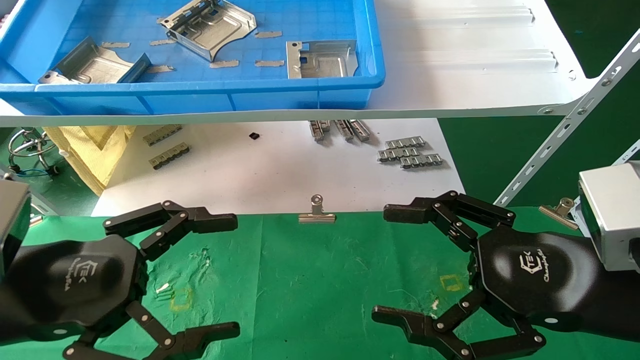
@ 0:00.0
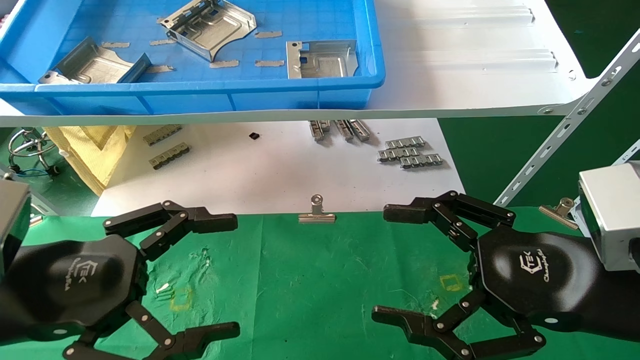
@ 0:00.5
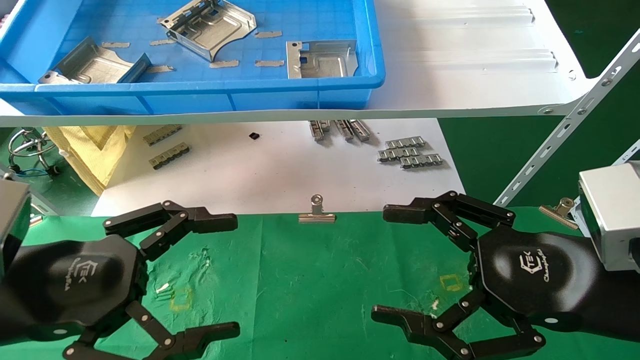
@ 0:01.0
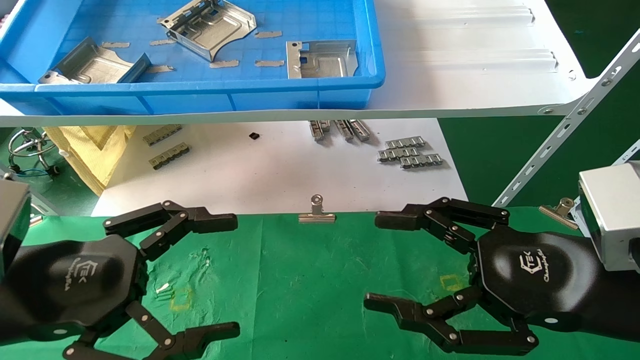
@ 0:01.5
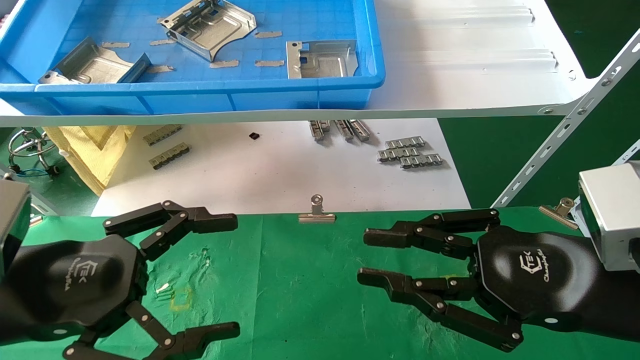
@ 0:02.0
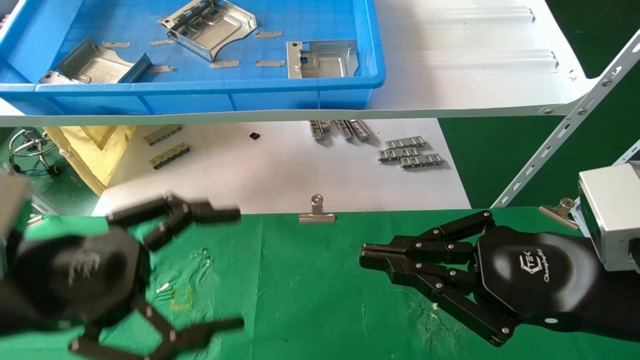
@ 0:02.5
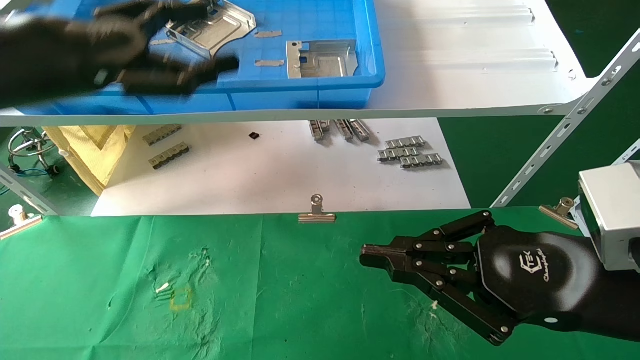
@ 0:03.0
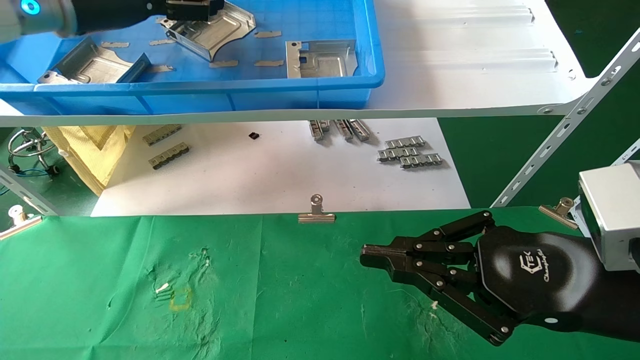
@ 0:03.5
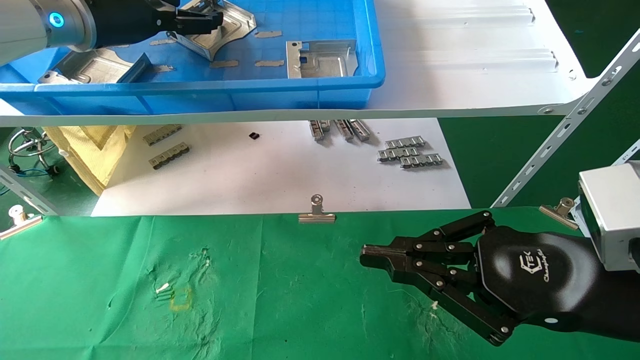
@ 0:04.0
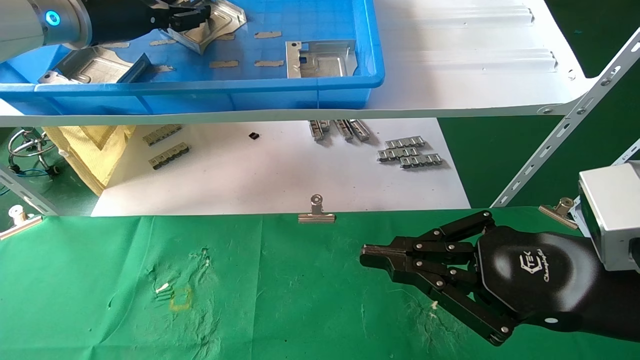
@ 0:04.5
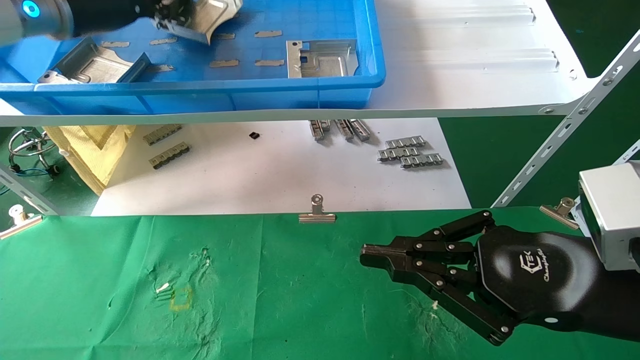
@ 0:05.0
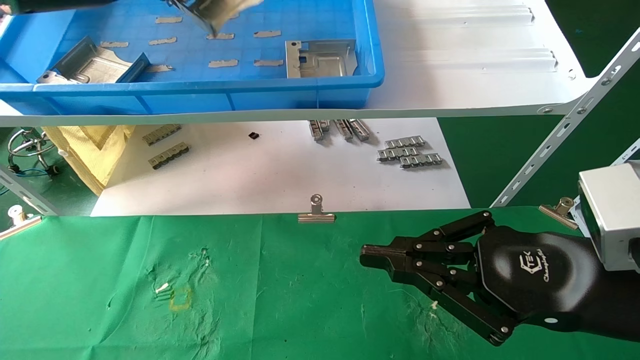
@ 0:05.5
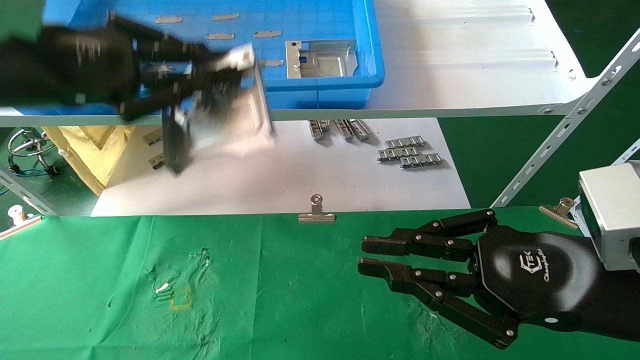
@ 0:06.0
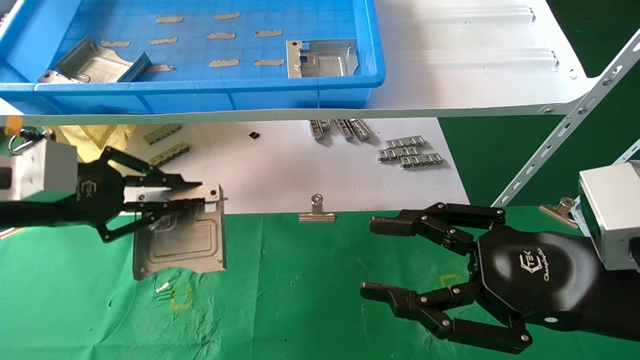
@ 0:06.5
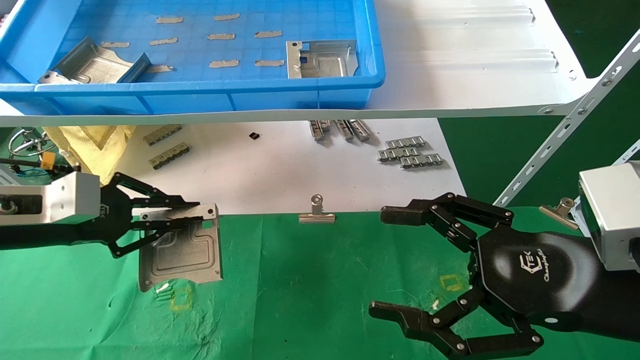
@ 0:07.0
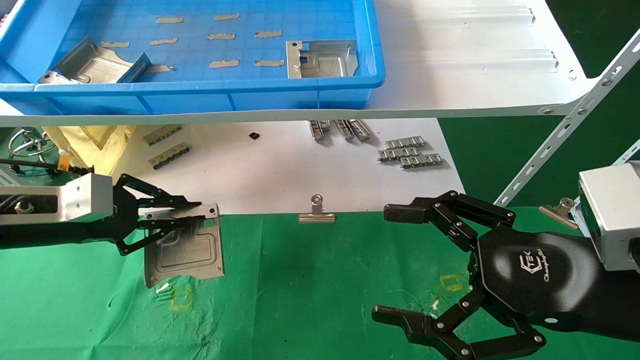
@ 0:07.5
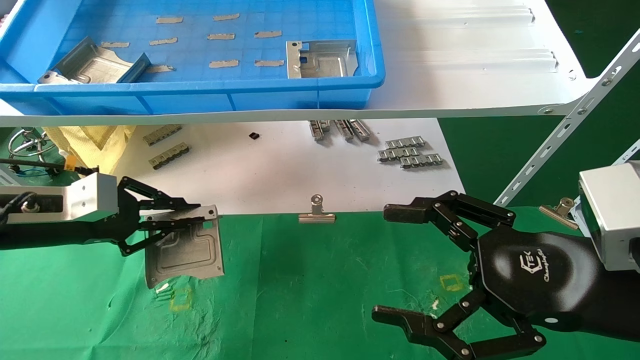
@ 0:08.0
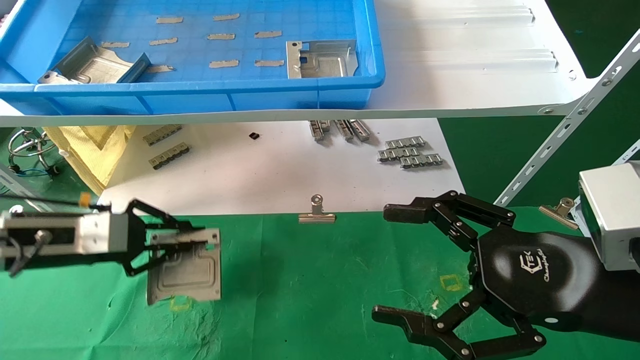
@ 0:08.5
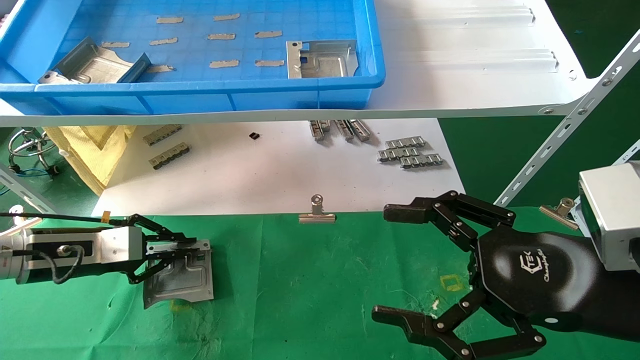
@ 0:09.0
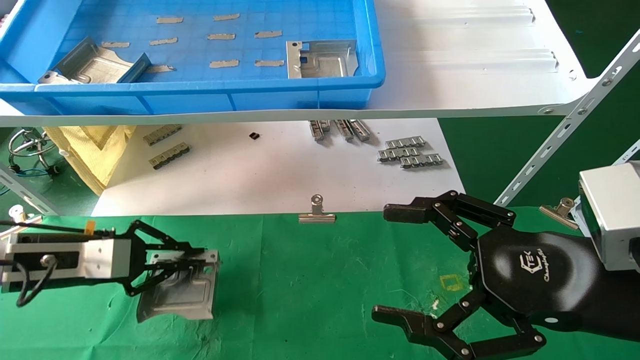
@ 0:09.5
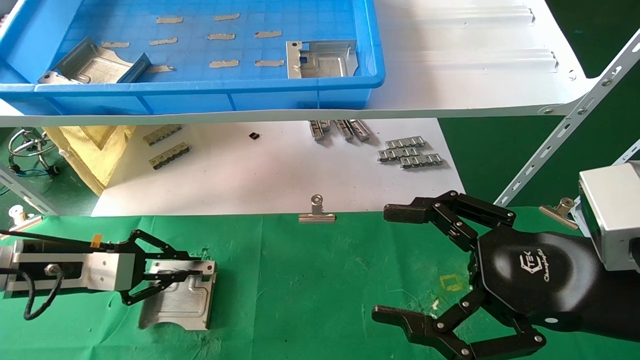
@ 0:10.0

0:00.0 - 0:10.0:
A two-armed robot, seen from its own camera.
Task of the whole recording: use the mechanical arm to pick up the parts and place them on the table.
Step, 0:03.0 - 0:04.5: Pick up the hard drive bracket from the feeding area.
0:00.0 - 0:02.0: The right gripper closes up.
0:02.0 - 0:04.0: The right gripper closes up. The left gripper moves forward and upward, about 35 cm.
0:04.0 - 0:06.0: The left gripper moves backward, about 15 cm, and closes its fingers.
0:06.0 - 0:08.0: The left gripper moves downward, about 15 cm. Meanwhile the right gripper opens its fingers.
0:08.0 - 0:10.0: The left gripper travels downward by about 5 cm.

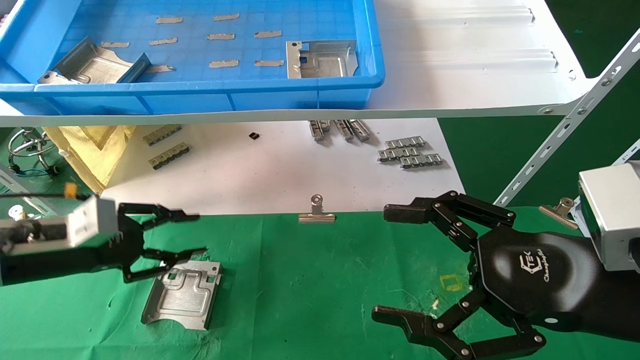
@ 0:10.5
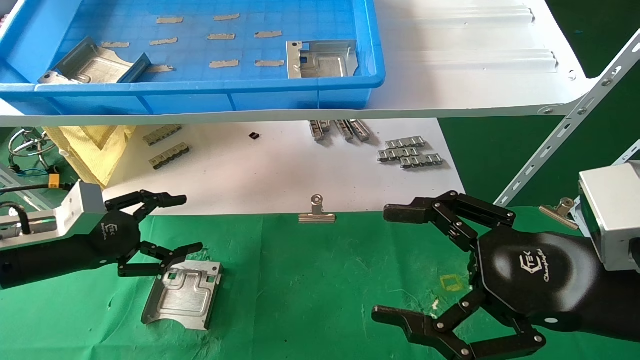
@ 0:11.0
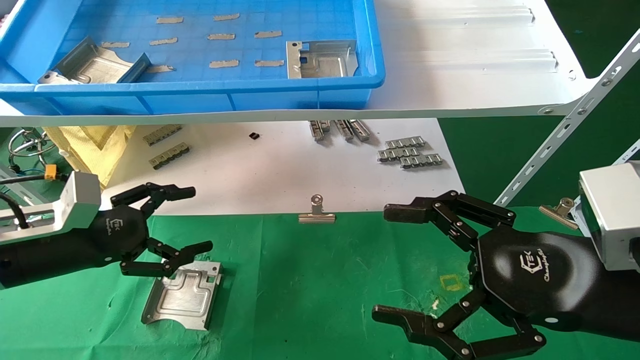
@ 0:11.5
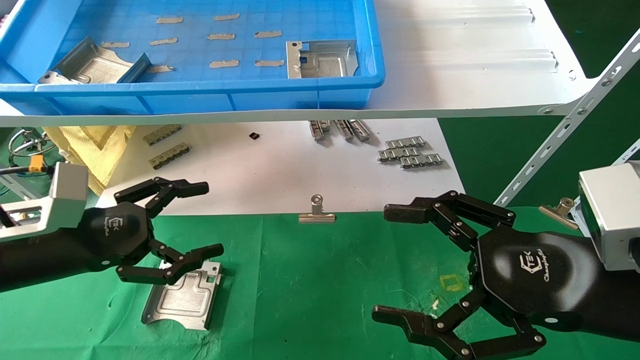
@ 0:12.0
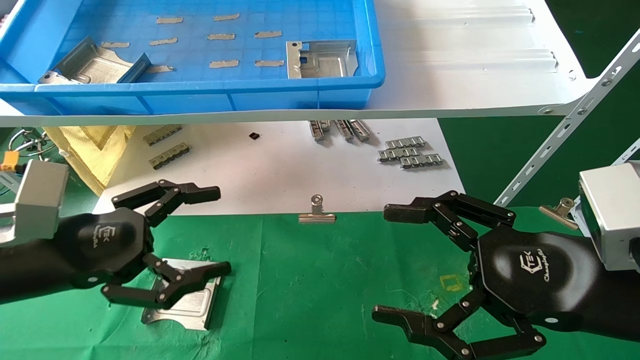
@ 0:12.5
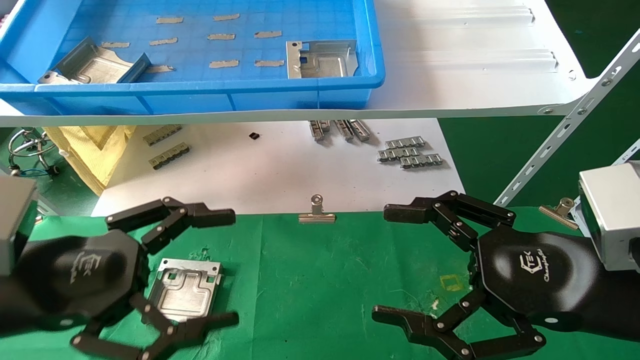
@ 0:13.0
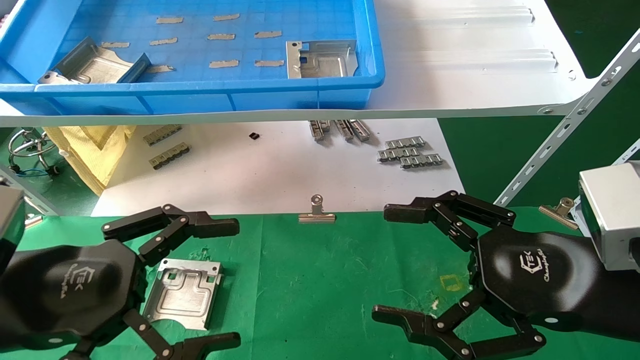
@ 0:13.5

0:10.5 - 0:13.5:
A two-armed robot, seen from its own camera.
Task of the whole recording: use the mechanical arm to pick up the parts and place them on the table.
0:10.5 - 0:12.0: The left gripper shifts by roughly 5 cm, and opens its fingers.
0:12.0 - 0:13.5: The left gripper is displaced backward and to the right by approximately 10 cm.

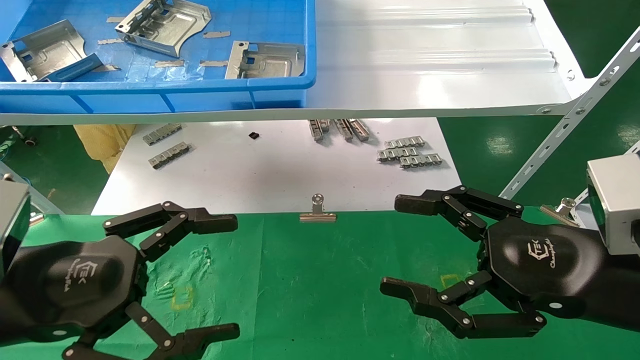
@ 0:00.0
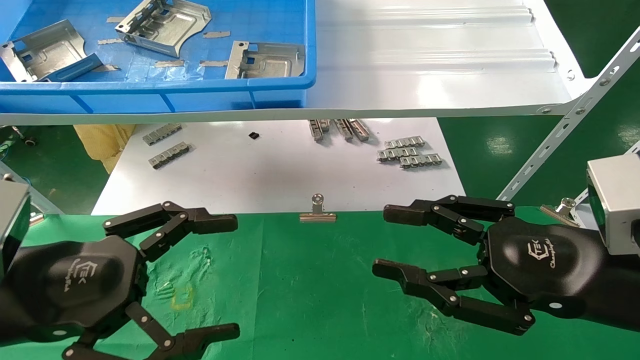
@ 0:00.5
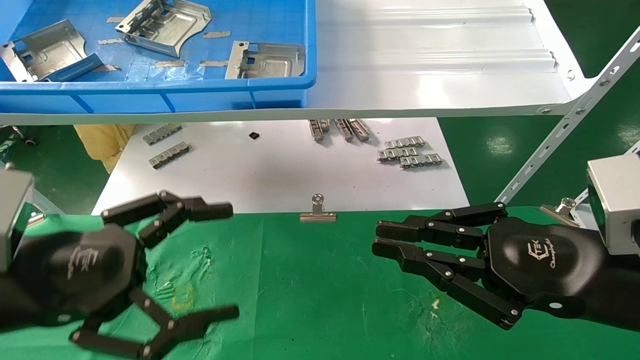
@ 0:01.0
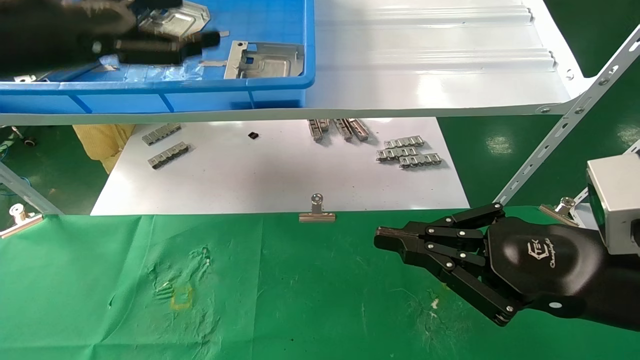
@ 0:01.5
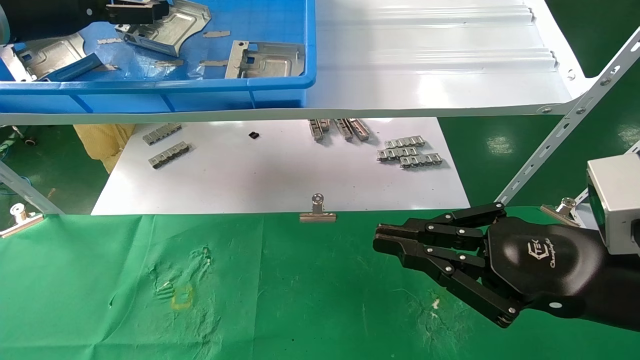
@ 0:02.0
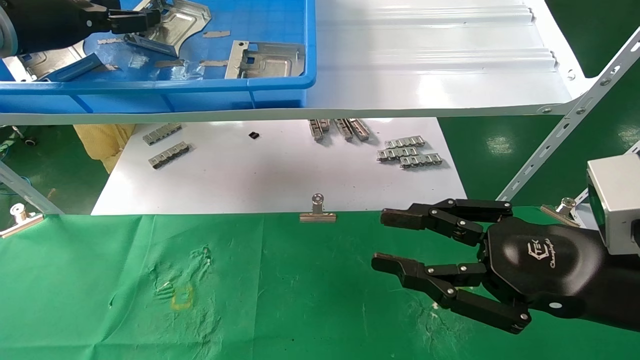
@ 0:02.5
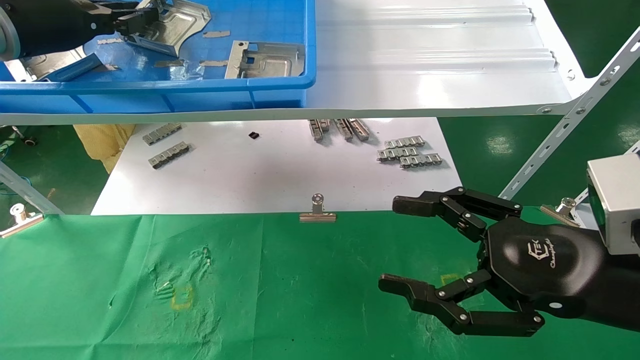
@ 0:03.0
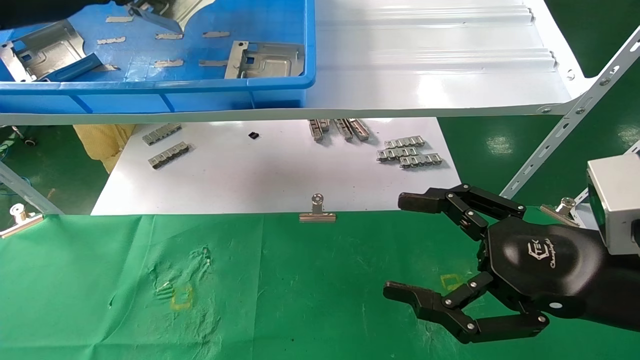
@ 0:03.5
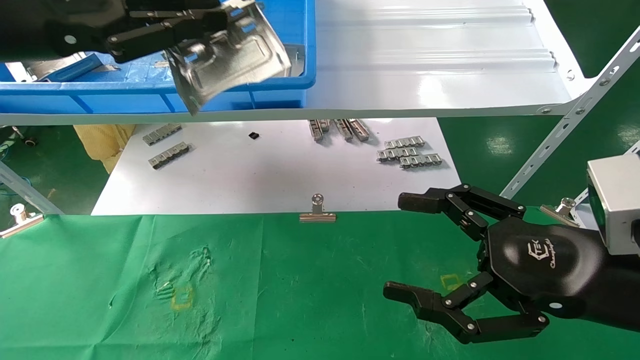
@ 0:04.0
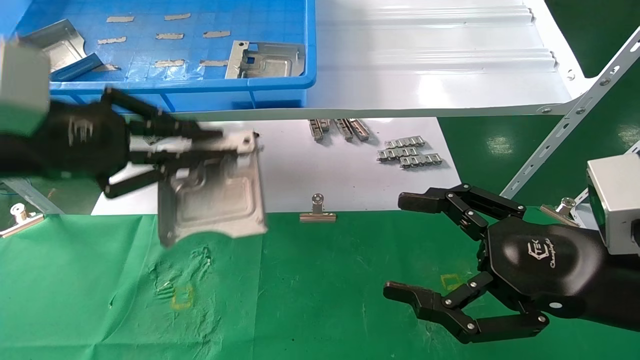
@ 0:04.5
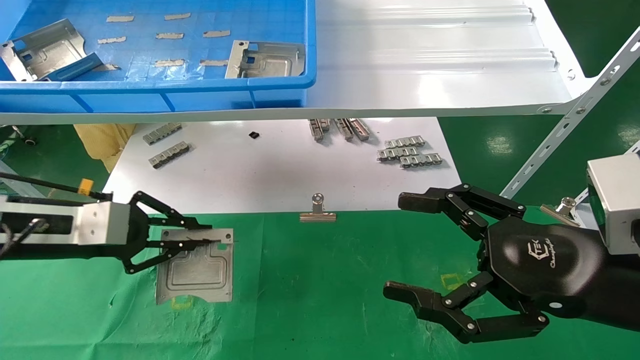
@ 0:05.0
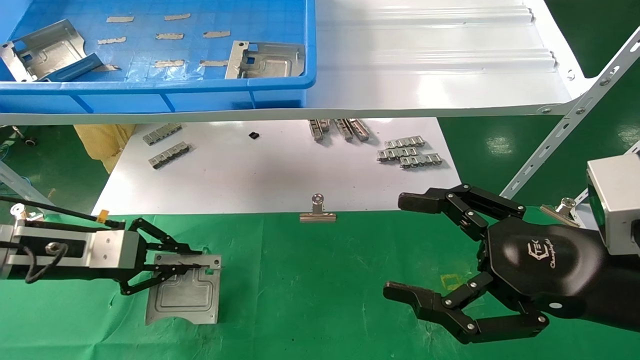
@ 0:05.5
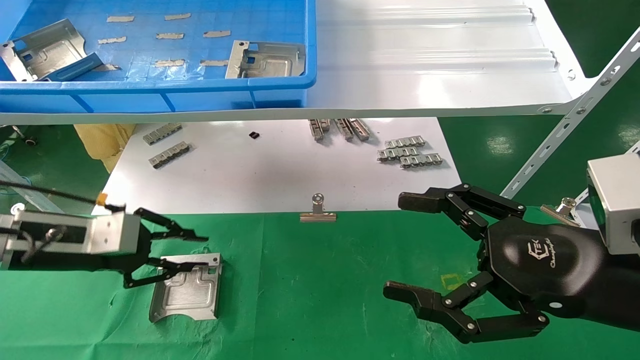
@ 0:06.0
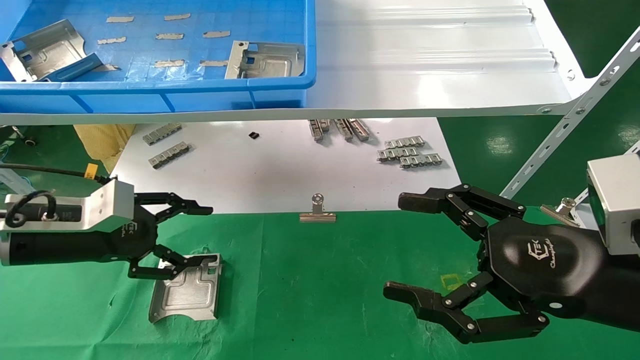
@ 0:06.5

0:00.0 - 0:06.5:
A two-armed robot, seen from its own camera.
Task of the whole recording: use the mechanical arm to pick up the parts and place them on the table.
Step, 0:01.5 - 0:04.0: Pick up the hard drive bracket from the feeding area.
Step, 0:04.5 - 0:06.5: Place the hard drive bracket into the box.
0:00.0 - 0:02.0: The left gripper travels upward and forward by about 30 cm. The right gripper closes its fingers.
0:02.0 - 0:04.5: The left gripper is displaced backward and downward by some 15 cm, and closes up. The right gripper opens its fingers.
0:04.5 - 0:06.5: The left gripper shifts about 15 cm downward and forward, and opens.
